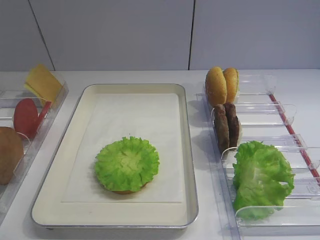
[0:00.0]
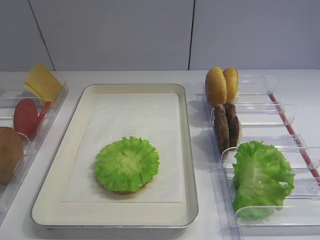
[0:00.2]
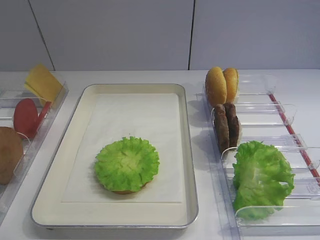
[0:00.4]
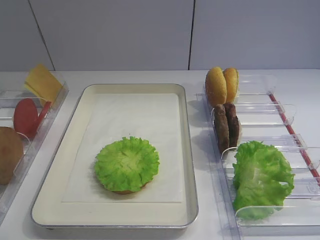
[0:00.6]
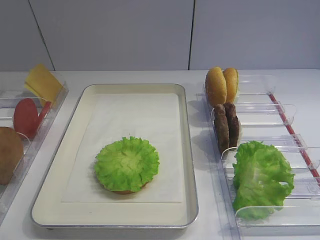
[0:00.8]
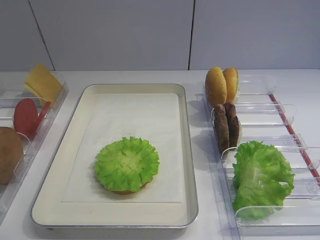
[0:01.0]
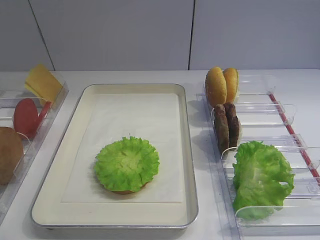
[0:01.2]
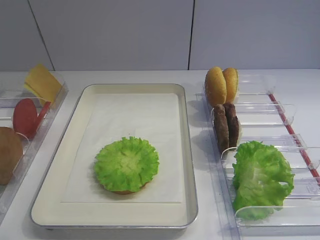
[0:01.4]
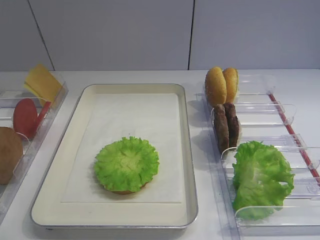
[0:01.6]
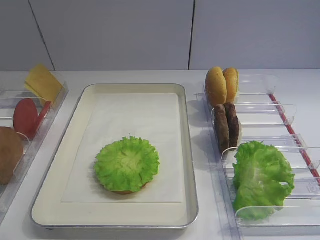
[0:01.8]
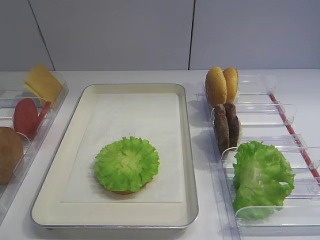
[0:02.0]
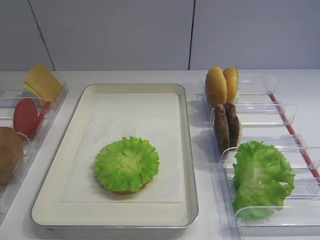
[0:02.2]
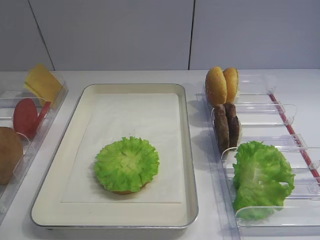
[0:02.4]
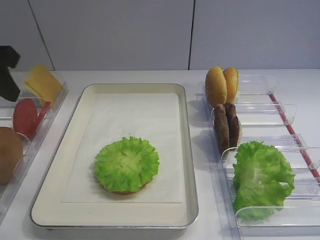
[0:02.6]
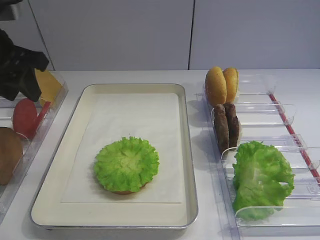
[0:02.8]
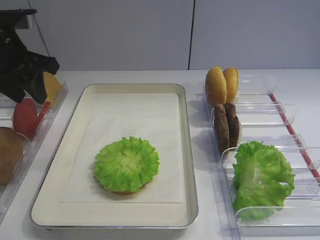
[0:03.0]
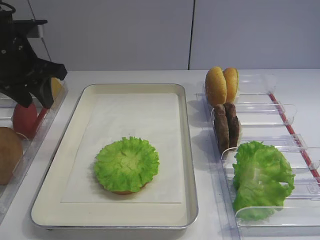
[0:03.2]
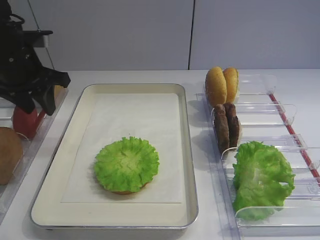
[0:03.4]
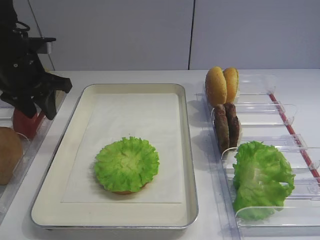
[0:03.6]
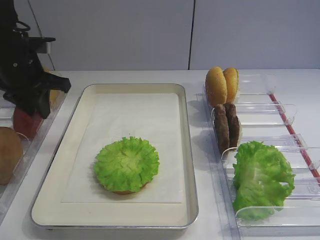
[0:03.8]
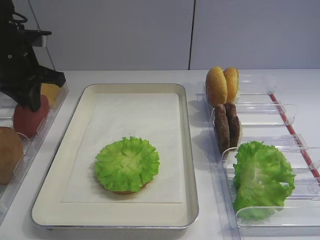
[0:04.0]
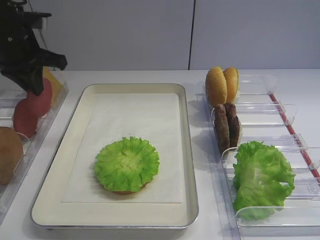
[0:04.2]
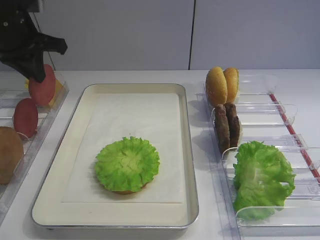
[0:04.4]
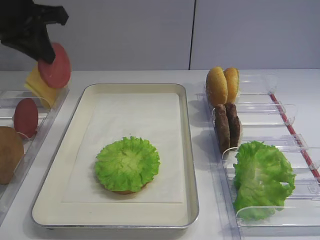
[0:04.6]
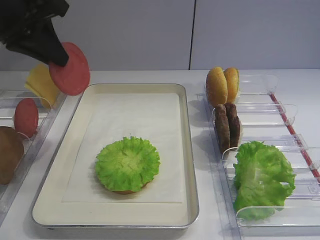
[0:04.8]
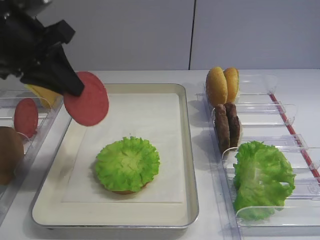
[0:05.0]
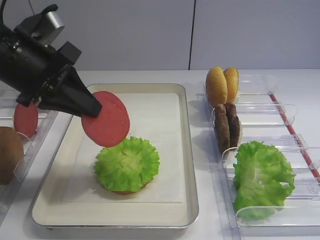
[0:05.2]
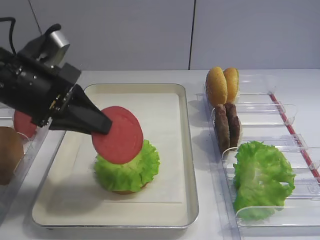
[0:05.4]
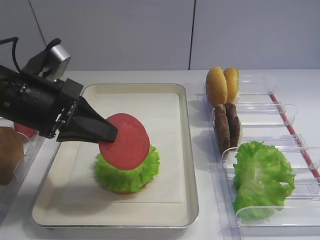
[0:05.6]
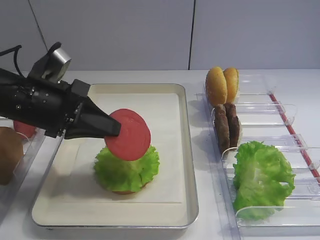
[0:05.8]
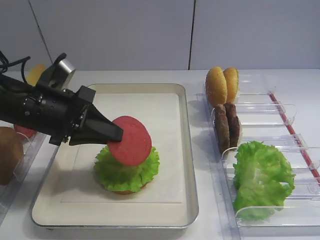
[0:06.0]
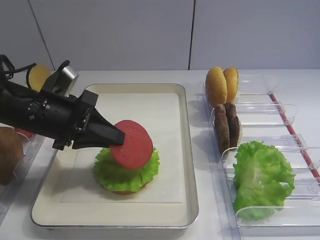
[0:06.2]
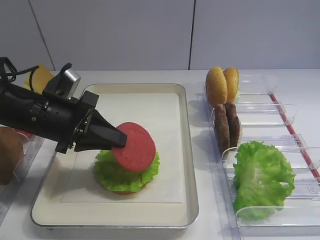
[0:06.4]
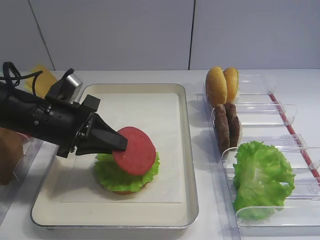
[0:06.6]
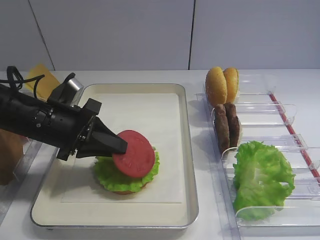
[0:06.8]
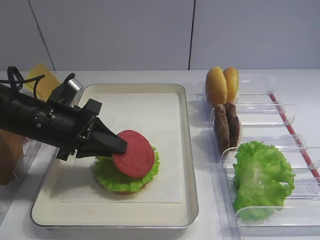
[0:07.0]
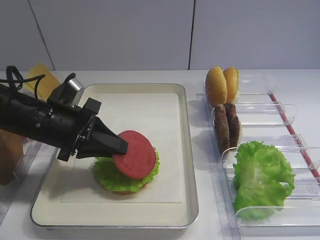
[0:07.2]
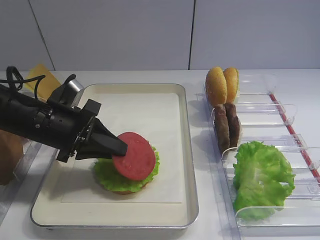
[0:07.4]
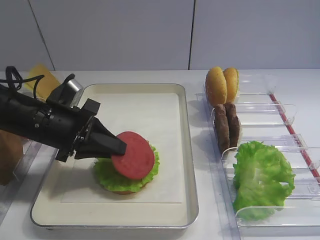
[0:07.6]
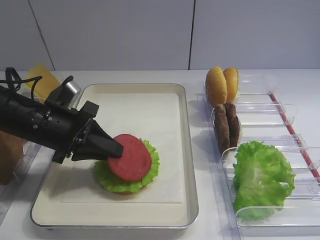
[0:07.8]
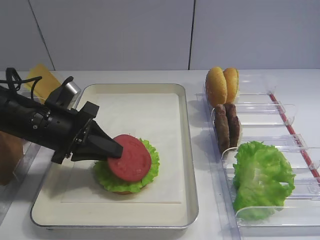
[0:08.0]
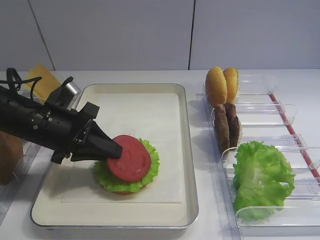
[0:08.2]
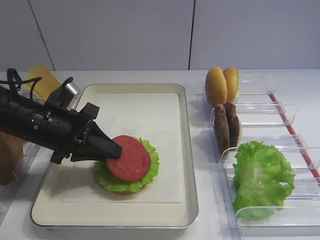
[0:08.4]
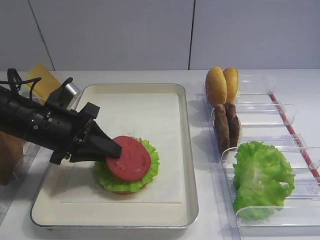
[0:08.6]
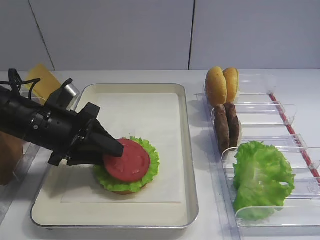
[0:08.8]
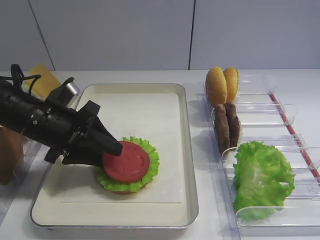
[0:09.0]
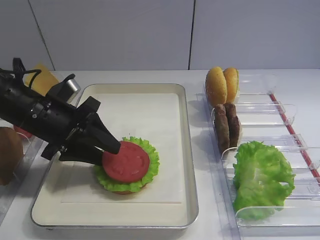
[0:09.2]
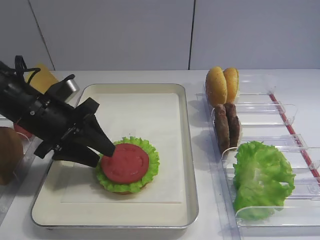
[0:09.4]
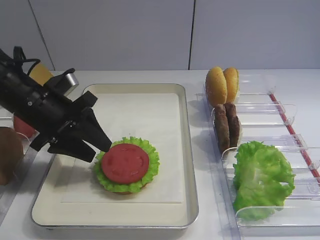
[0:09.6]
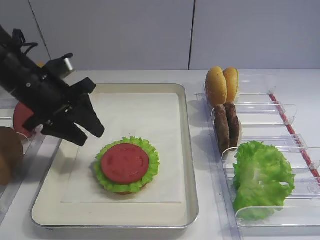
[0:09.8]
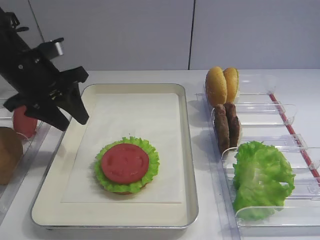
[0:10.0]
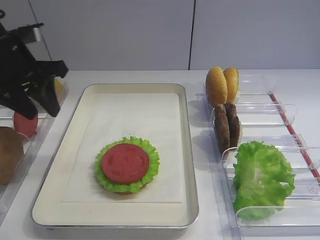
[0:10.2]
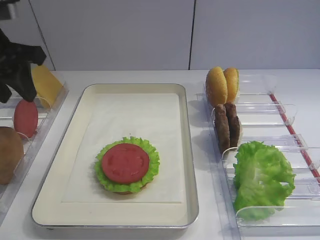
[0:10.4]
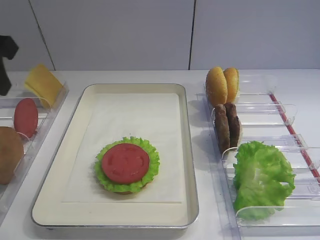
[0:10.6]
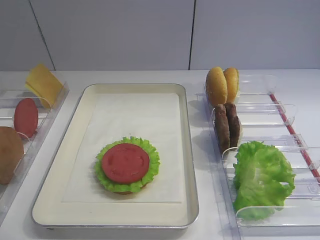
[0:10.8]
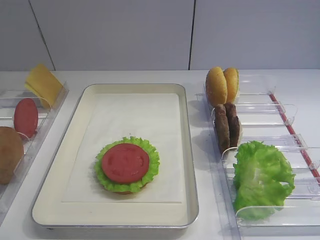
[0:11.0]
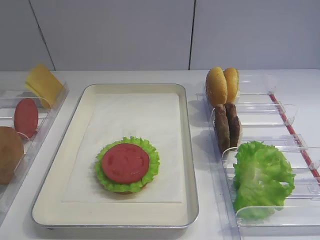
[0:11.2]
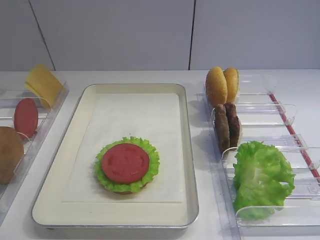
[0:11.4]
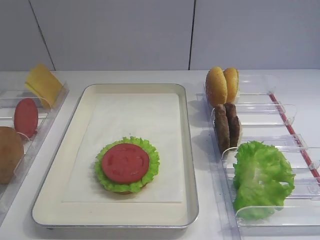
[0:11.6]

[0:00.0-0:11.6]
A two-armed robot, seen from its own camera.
Step, 0:00.0 to 0:04.4: Pick up the tomato slice with the left gripper.
Step, 0:04.6 to 0:09.8: Place the tomato slice on the lettuce leaf with the left gripper.
0:01.4 to 0:02.8: The left gripper heads forward, covering roughly 30 cm.
0:02.8 to 0:04.4: The left gripper heads forward, covering about 5 cm, and closes its fingers.
0:04.4 to 0:05.8: The left gripper goes approximately 15 cm backward, downward and to the right.
0:05.8 to 0:07.2: The left gripper heads downward, covering approximately 5 cm.
0:07.2 to 0:08.8: The left gripper opens.
0:08.8 to 0:10.2: The left gripper heads upward and to the left, covering some 10 cm.
0:10.2 to 0:11.6: The left gripper travels backward by roughly 30 cm.

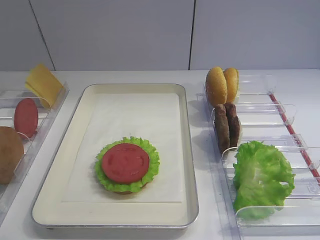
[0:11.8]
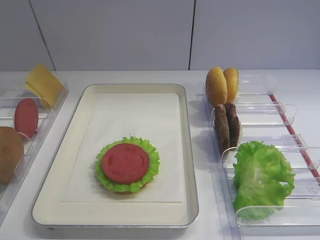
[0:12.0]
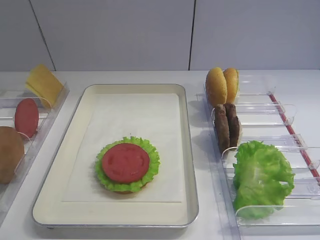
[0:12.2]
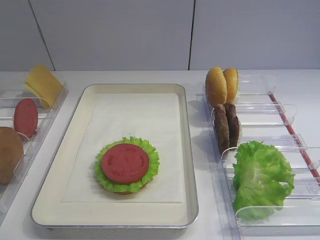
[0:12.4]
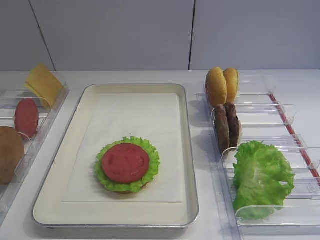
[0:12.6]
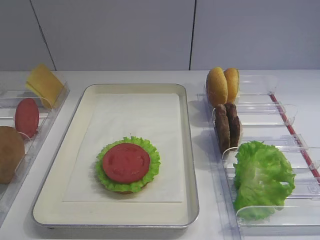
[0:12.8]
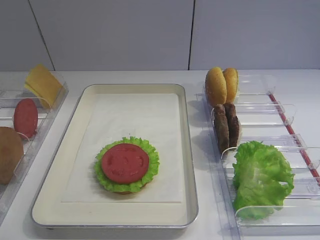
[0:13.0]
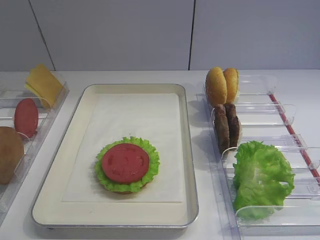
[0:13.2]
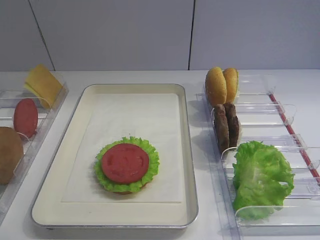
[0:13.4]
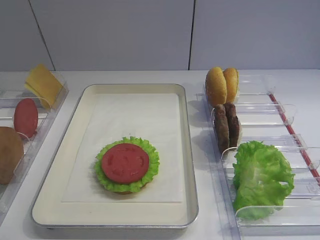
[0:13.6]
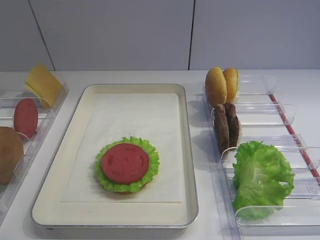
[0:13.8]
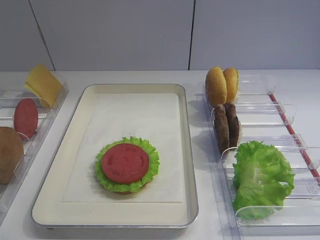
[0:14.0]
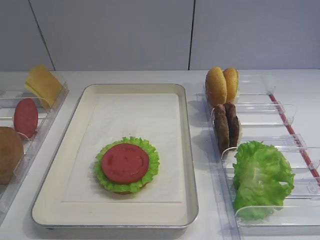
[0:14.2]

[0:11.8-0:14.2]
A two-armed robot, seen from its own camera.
0:13.0 to 0:14.2: Neither gripper changes place.
